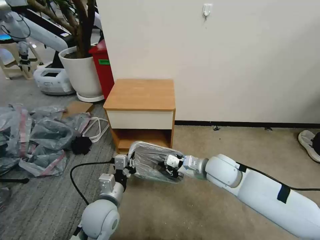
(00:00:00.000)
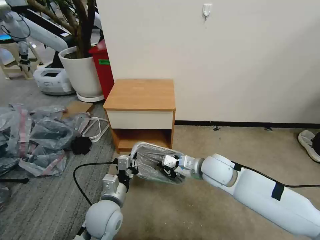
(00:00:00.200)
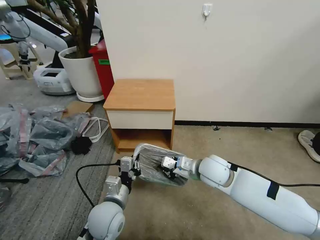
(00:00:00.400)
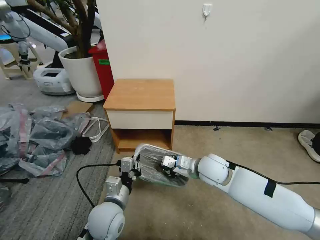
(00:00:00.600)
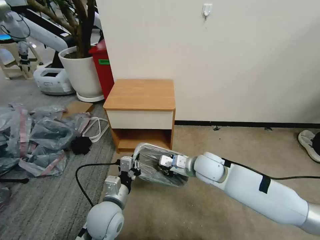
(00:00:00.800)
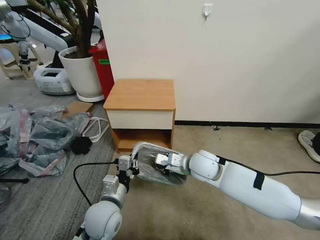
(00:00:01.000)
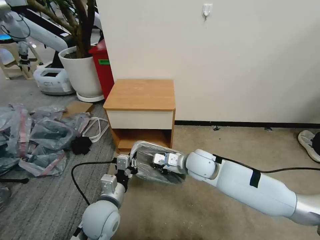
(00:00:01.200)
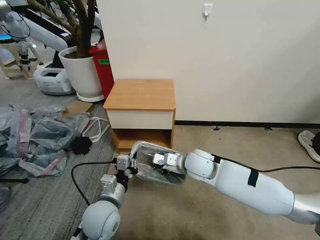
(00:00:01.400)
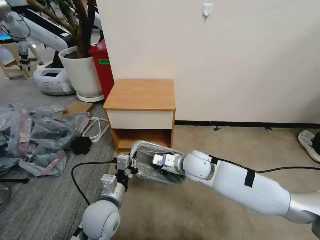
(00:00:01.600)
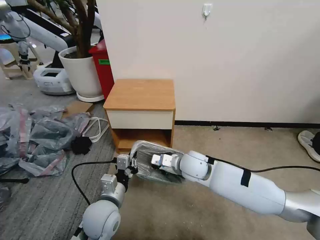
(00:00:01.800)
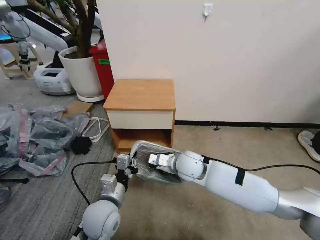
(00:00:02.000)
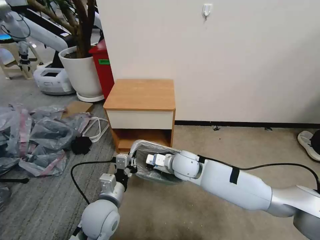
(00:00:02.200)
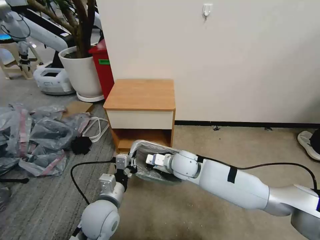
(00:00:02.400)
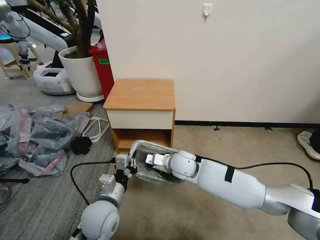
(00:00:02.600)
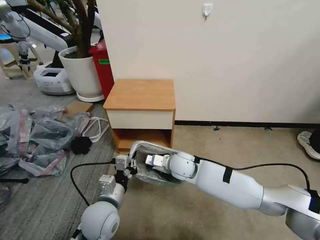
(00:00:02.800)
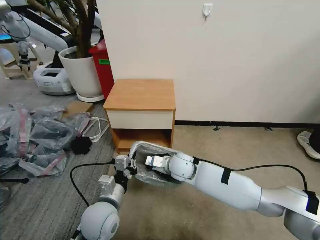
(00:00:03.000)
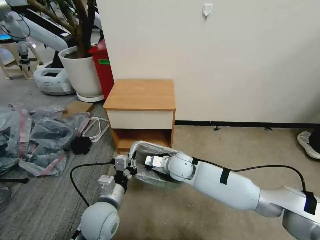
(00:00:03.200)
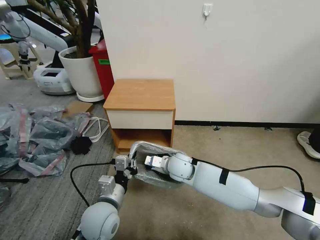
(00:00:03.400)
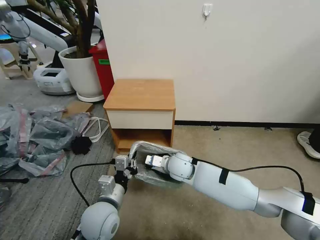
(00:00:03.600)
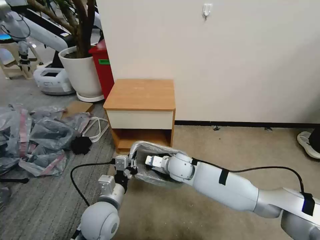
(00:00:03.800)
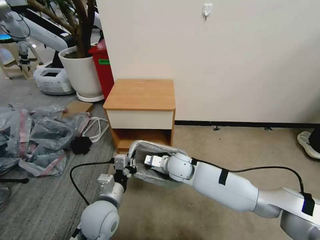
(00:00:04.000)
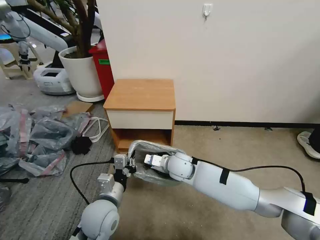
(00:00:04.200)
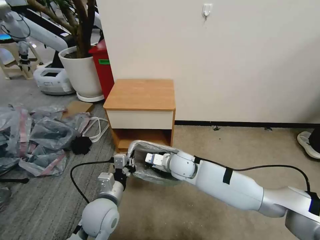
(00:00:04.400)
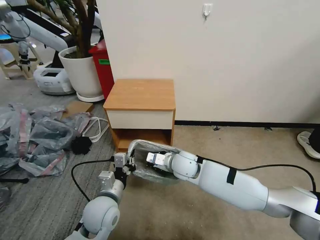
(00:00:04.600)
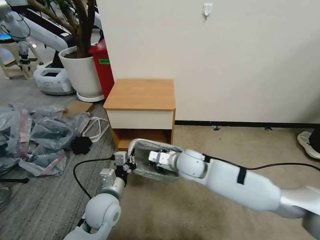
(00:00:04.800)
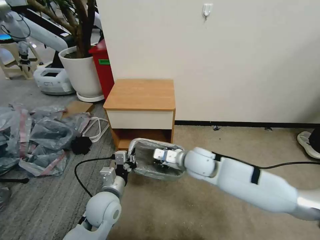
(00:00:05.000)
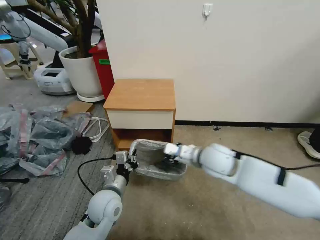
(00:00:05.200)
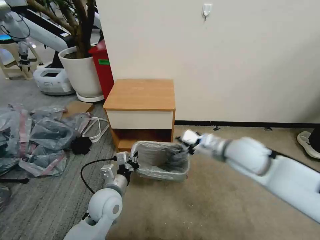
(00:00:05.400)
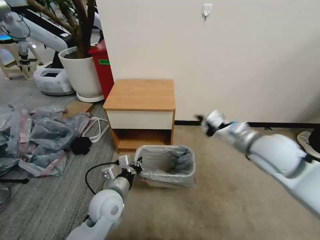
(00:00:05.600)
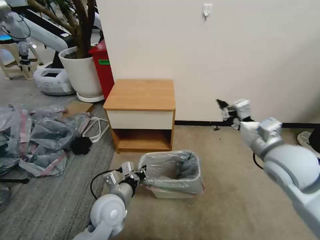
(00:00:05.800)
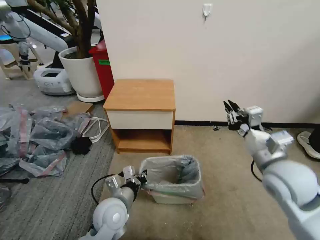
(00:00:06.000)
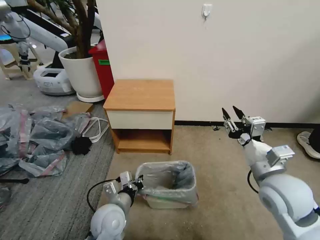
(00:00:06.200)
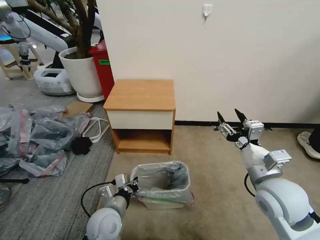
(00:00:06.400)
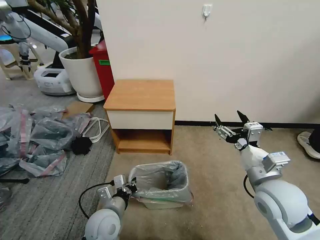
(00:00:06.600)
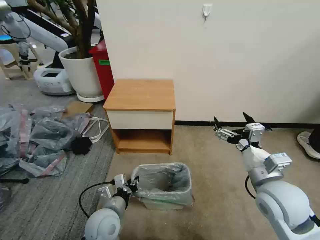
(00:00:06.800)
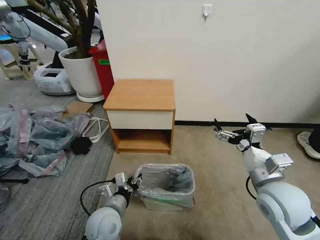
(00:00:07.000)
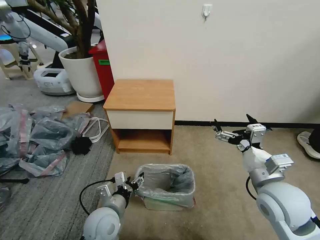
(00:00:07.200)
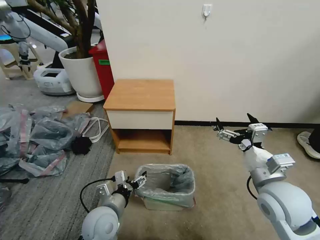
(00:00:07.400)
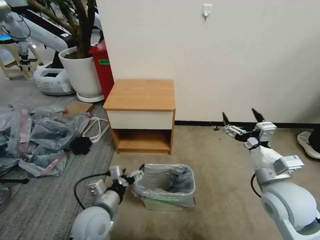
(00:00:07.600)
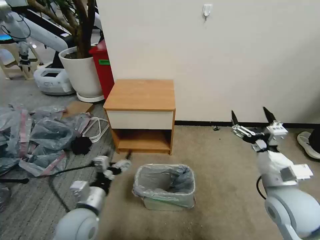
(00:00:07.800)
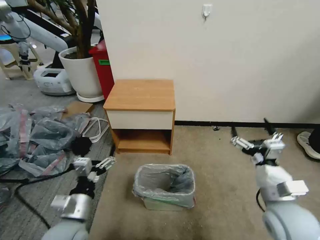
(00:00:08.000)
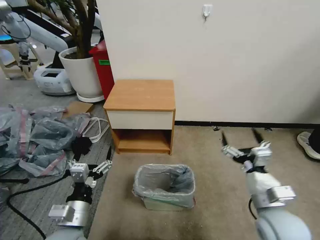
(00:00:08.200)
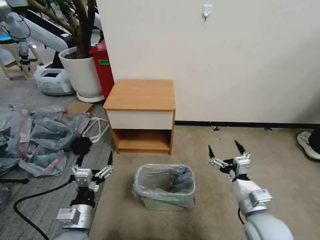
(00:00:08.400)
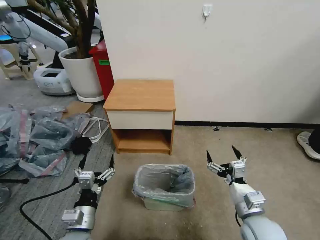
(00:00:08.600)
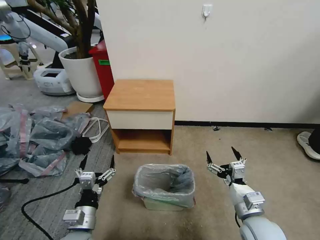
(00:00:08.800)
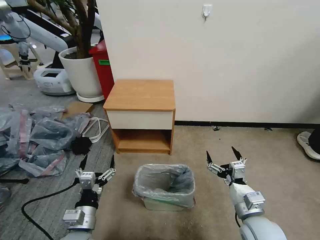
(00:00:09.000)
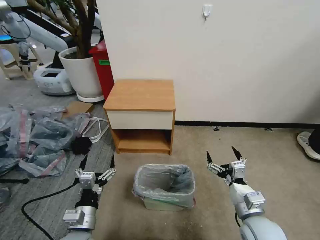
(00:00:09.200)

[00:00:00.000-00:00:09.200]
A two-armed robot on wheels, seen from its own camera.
Task of the whole recording: Pick up the garbage bag from the table and place it over the trash can.
00:00:00.000 to 00:00:01.600: The right gripper moves to the left, roughly 5 cm.
00:00:01.600 to 00:00:03.000: The right gripper changes place by roughly 5 cm.
00:00:03.000 to 00:00:04.600: The grippers stay close to where they were, moving slightly.
00:00:04.600 to 00:00:06.200: The right gripper moves to the right, backward and upward, about 30 cm, and opens.
00:00:06.200 to 00:00:07.600: The right gripper opens, while the left gripper opens its fingers.
00:00:07.600 to 00:00:09.200: The right gripper moves downward and backward, approximately 10 cm. The left gripper goes roughly 5 cm backward.
